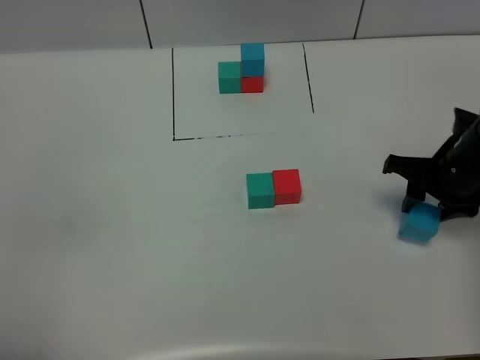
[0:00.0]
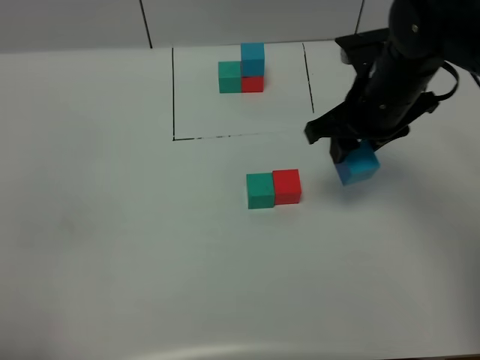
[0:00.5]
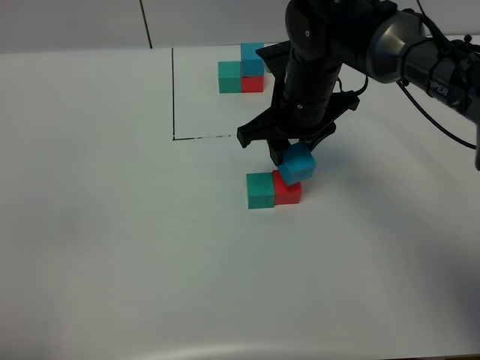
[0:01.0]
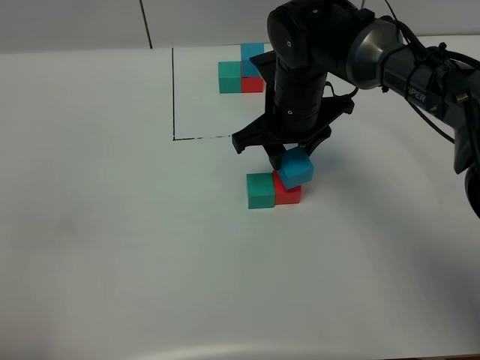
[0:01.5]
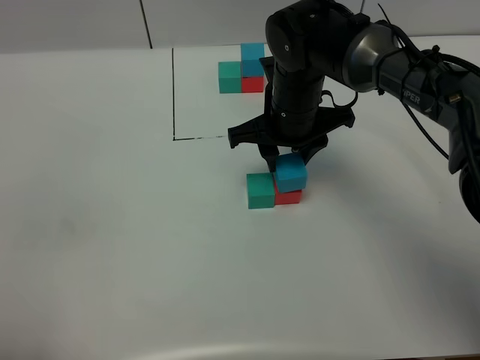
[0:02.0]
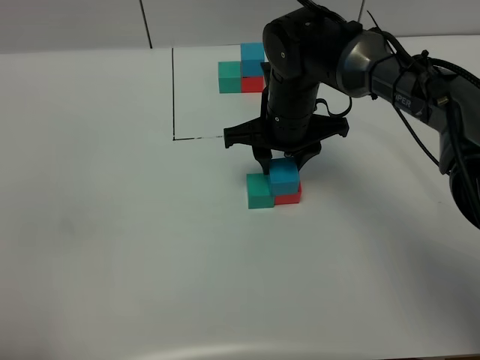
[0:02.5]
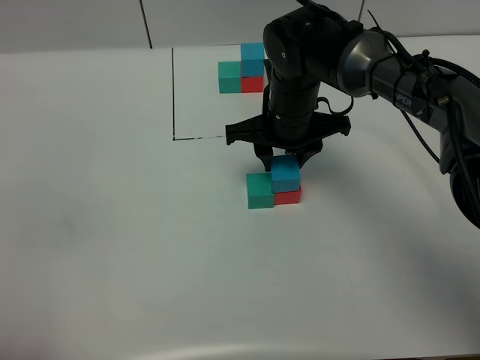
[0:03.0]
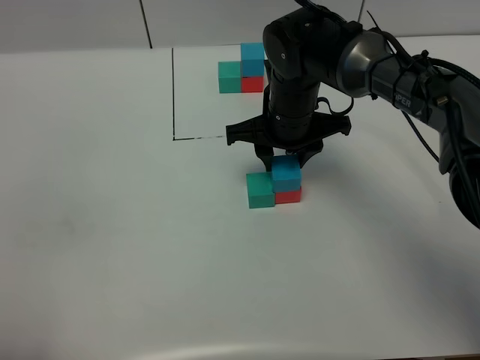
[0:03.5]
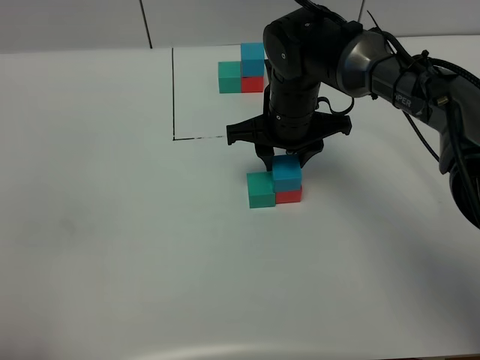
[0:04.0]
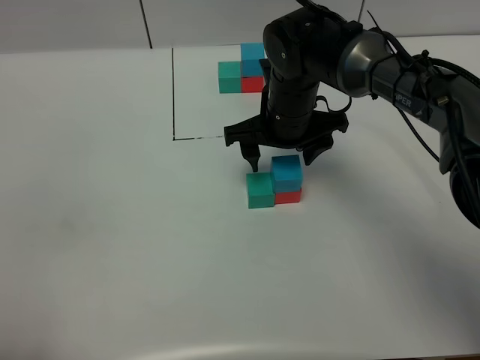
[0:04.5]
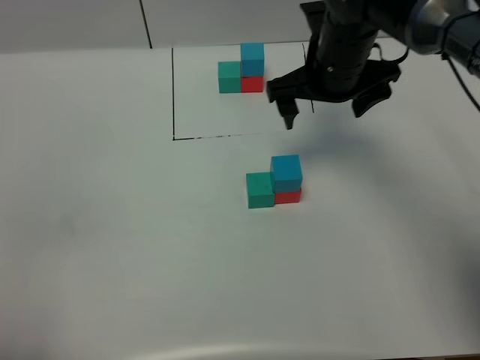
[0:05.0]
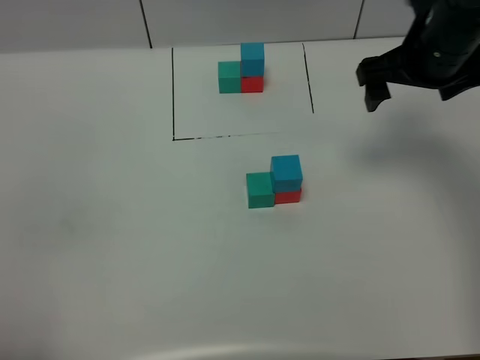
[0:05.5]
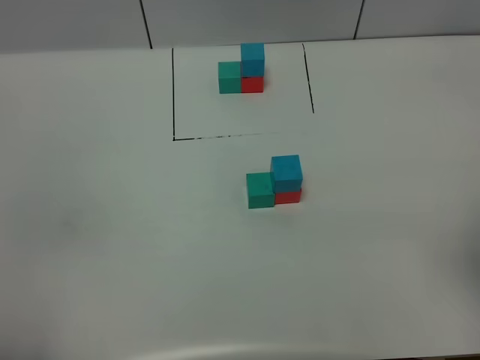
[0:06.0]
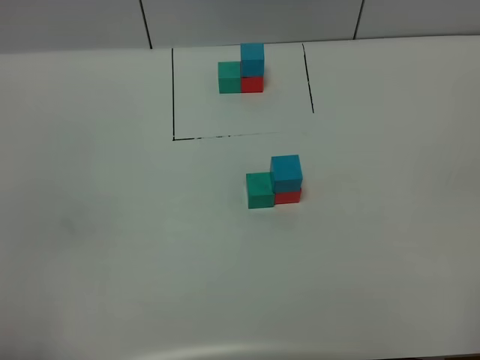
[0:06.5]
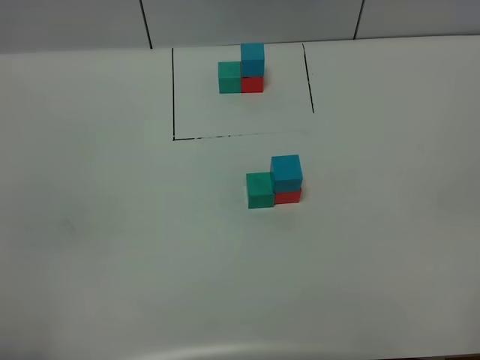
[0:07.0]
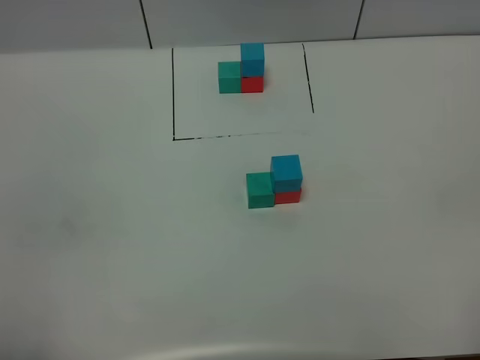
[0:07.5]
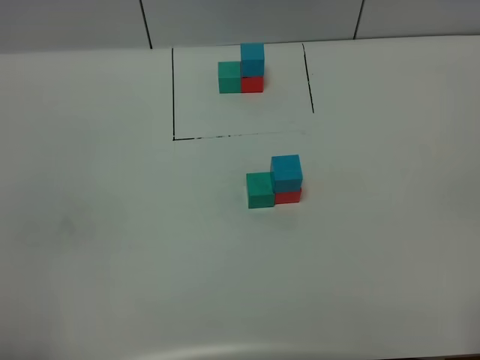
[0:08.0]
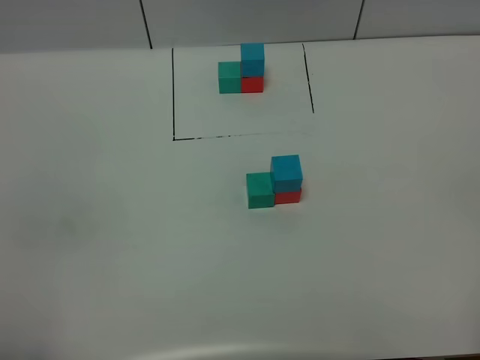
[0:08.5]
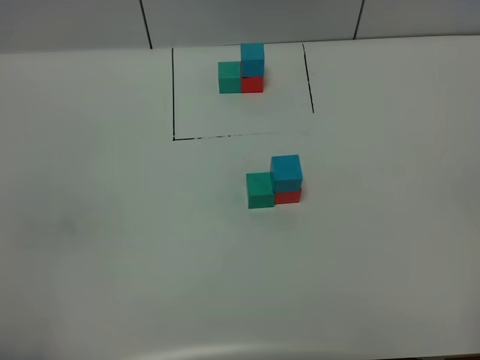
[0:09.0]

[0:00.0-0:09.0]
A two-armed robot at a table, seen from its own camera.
Task of the whole recording: According to the building block template in front, assemble the scattered blocks together.
Step, 0:00.0 to 0:04.0: Put the blue build block on the red build block.
0:00.0 to 0:02.0: The right gripper is displaced to the left by approximately 20 cm.
0:02.0 to 0:04.5: The right gripper opens up.
0:04.5 to 0:07.0: The right gripper moves backward and to the right, approximately 40 cm.

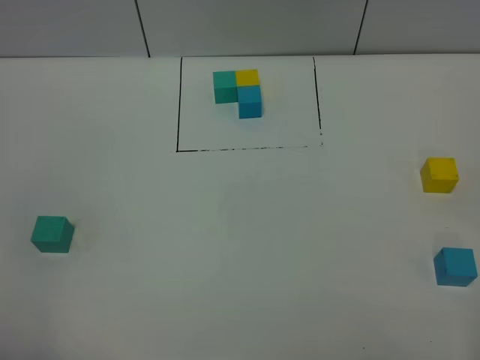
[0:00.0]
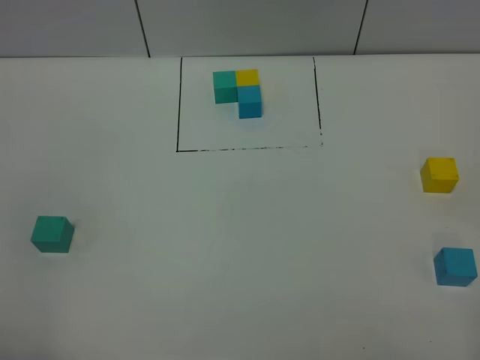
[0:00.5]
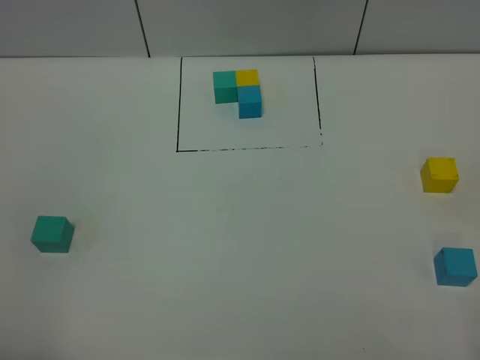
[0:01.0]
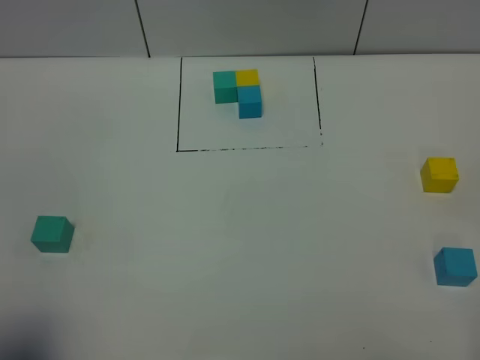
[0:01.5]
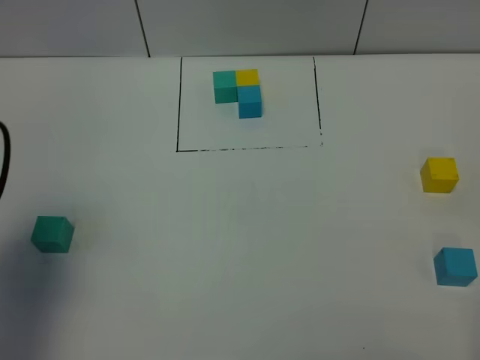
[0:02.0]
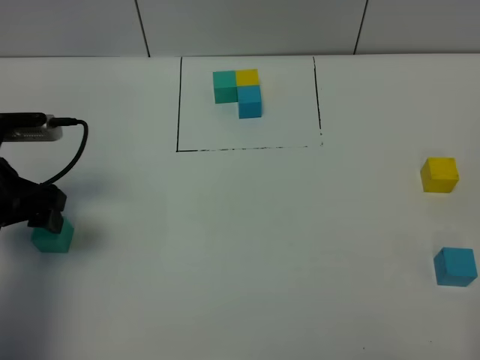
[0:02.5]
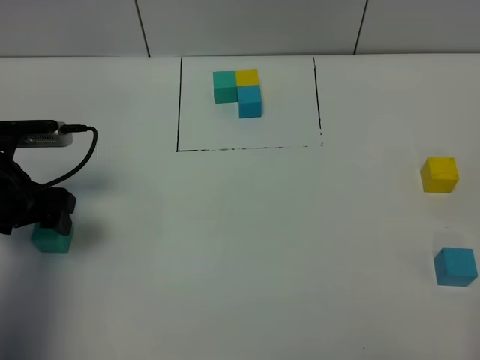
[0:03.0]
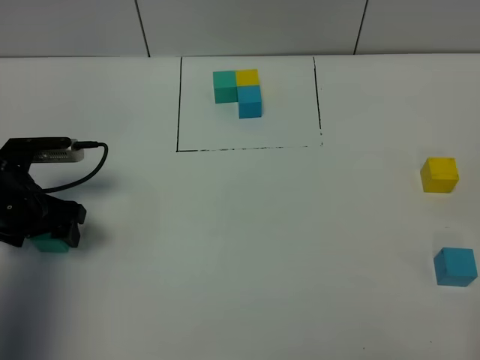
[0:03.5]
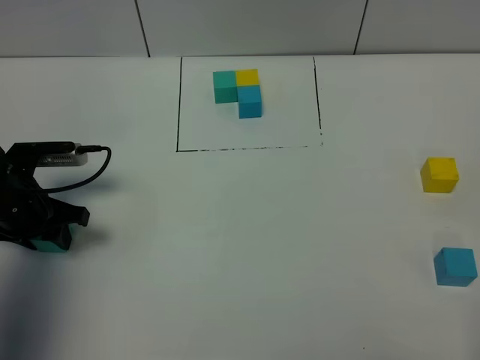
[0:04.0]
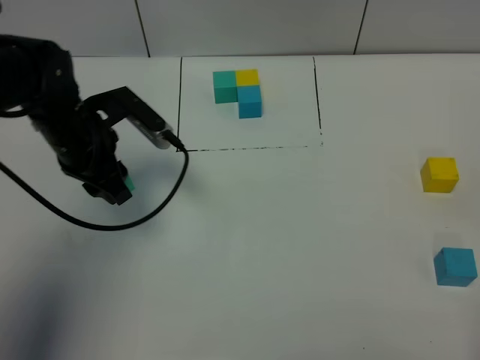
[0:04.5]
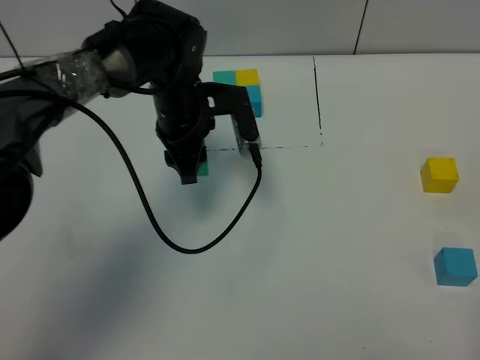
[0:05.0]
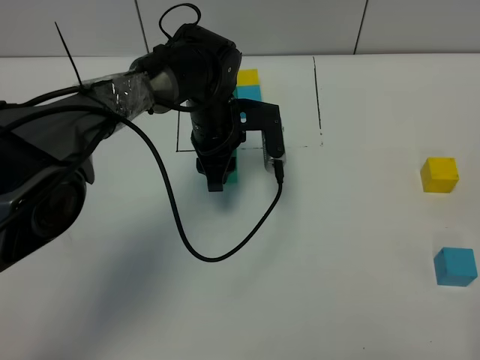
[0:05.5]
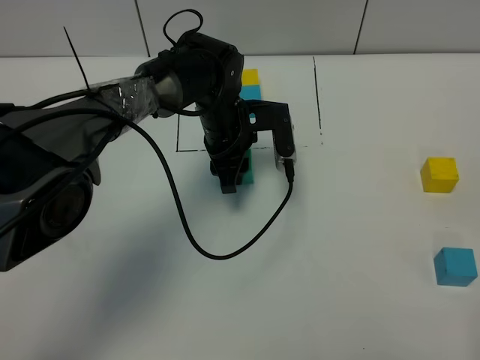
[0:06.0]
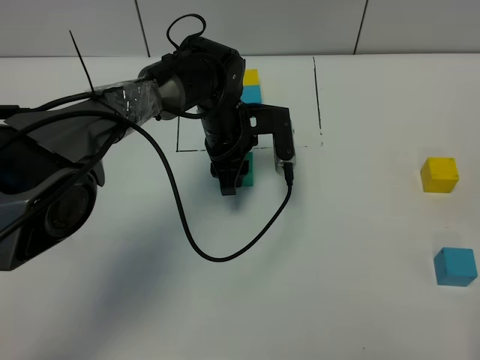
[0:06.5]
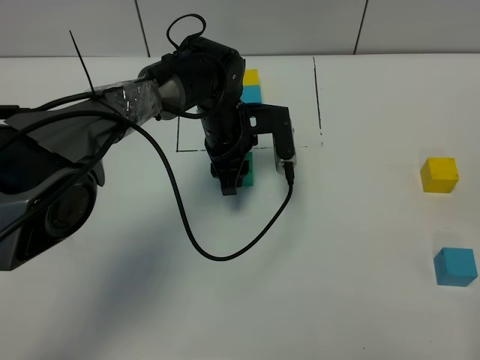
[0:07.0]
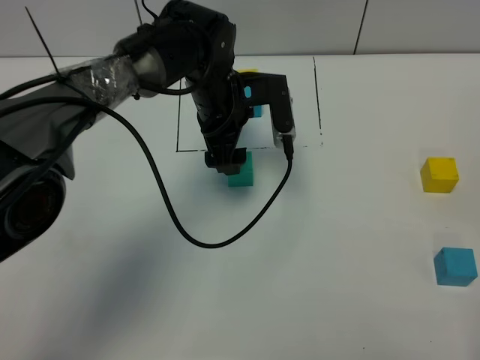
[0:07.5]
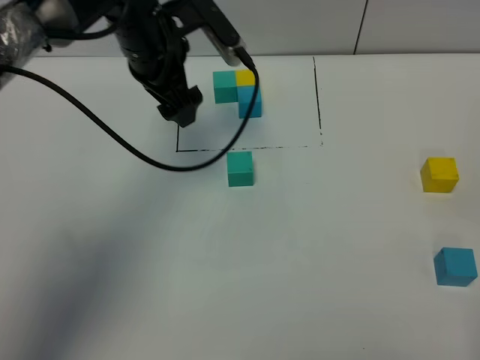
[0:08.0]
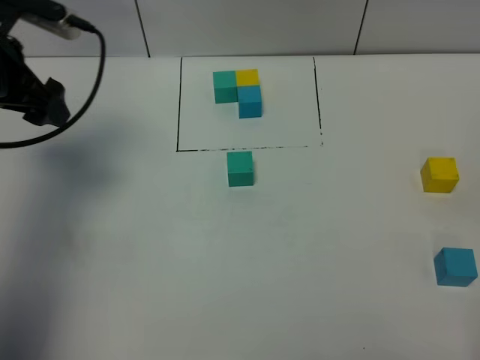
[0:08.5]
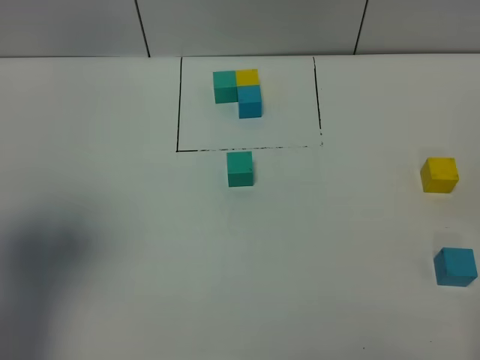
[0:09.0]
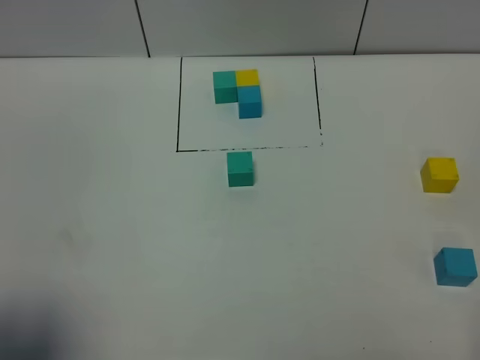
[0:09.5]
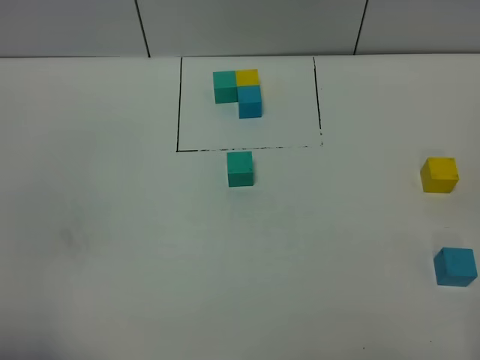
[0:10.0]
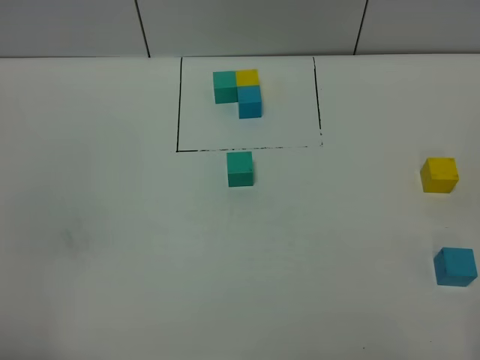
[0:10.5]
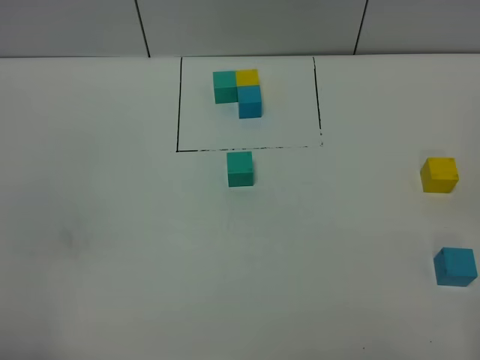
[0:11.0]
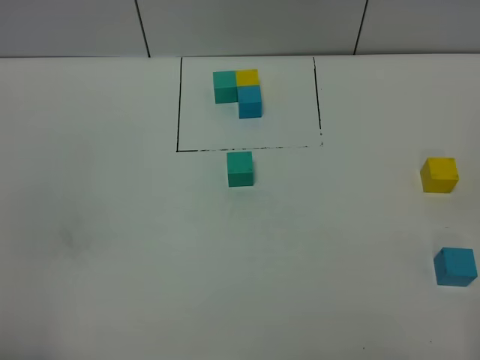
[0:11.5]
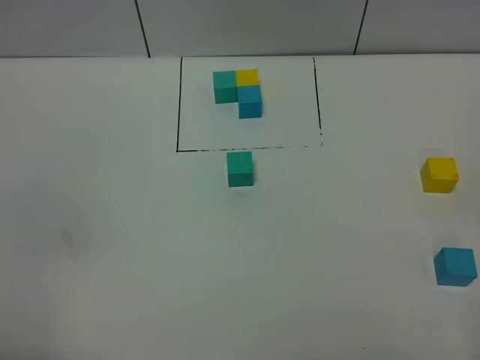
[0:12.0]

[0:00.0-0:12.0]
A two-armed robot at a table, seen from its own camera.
Task of the whole recording: According to the building block template in front, assemble the scattered blocks together.
Step, 0:00.0 to 0:07.0: Put the green build block in the center of the table.
0:00.0 to 0:02.0: The left gripper shifts some 20 cm forward.
0:02.0 to 0:04.0: The left gripper heads downward and forward, covering approximately 20 cm, and closes its fingers.
0:04.0 to 0:06.0: The left gripper travels to the right and forward by about 30 cm.
0:06.0 to 0:08.0: The left gripper is displaced upward and to the left by some 15 cm, and opens.
0:08.0 to 0:10.0: The left gripper moves backward and to the left, approximately 40 cm.

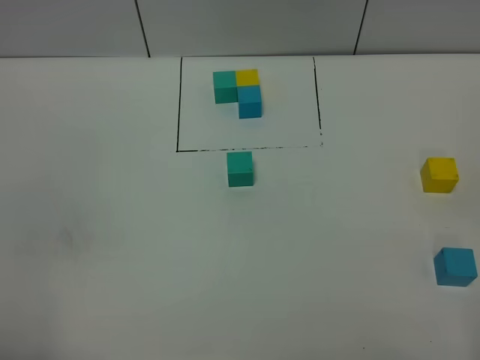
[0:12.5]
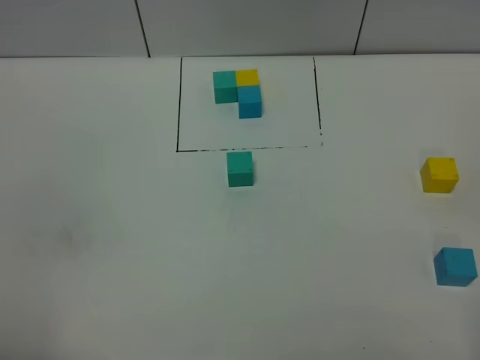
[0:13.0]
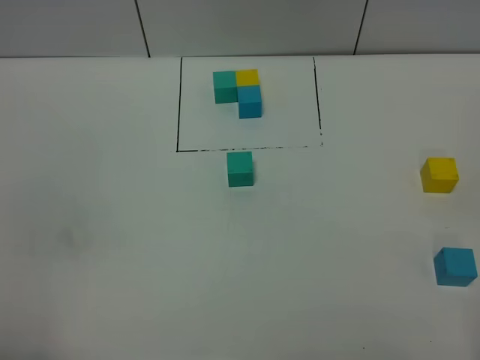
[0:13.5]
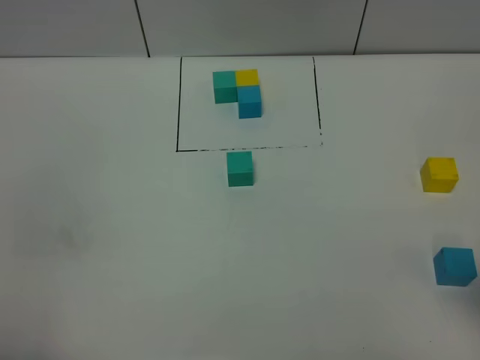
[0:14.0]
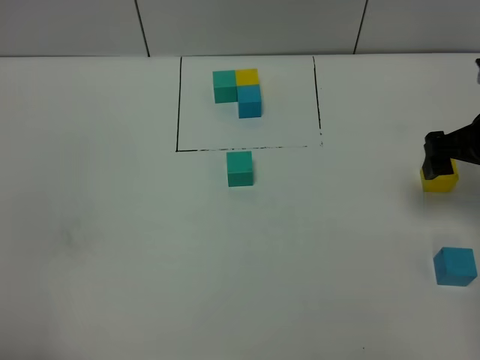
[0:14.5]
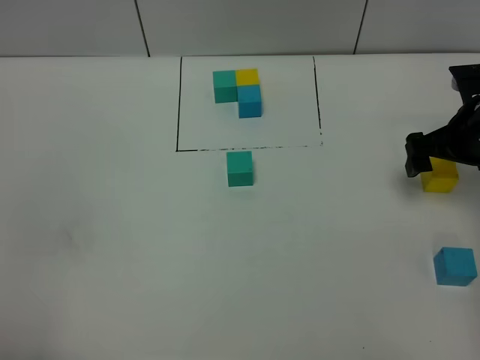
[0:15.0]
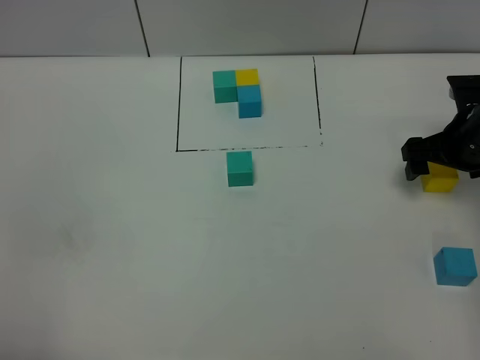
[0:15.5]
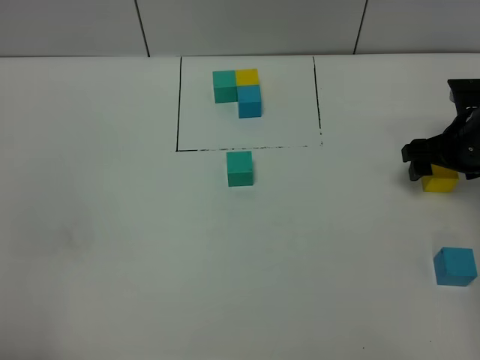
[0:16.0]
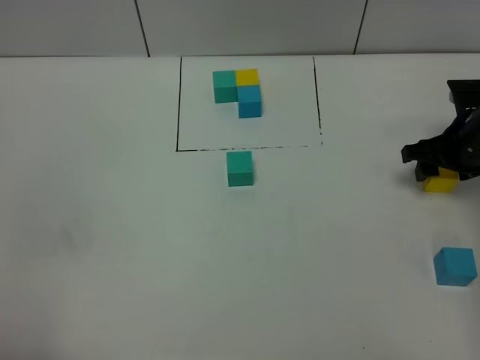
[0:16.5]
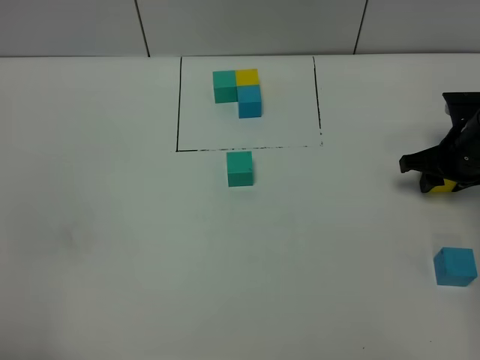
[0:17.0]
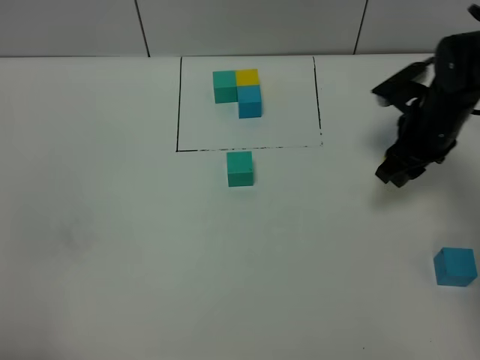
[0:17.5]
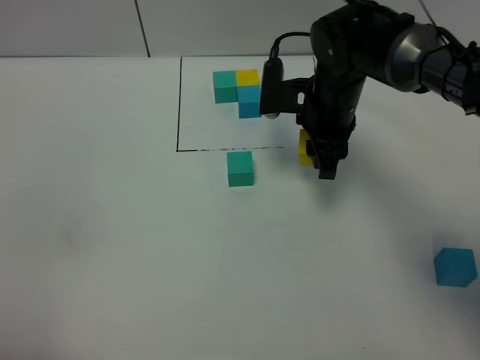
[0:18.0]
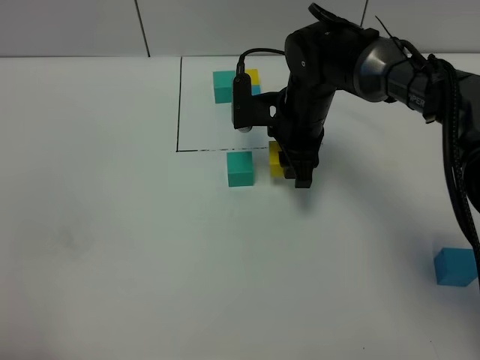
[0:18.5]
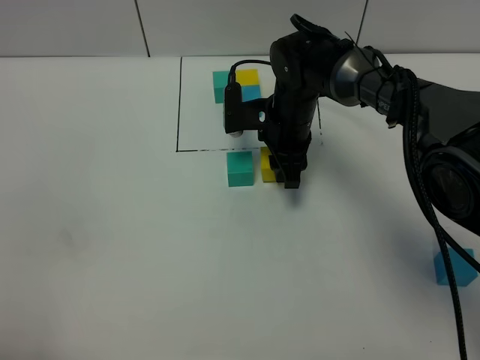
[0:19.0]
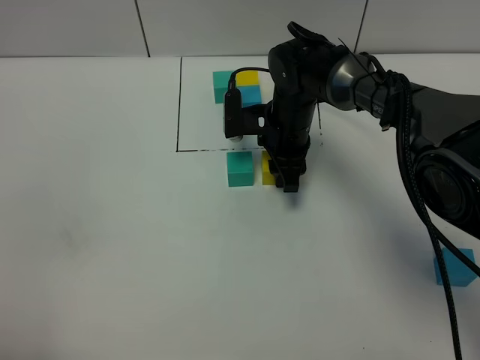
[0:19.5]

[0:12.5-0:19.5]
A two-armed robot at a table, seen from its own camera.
Task of the whole recording: According to the building block template in front, assemble the scattered blocks together.
0:12.5 to 0:14.5: The right gripper is displaced forward by approximately 30 cm, and opens its fingers.
0:14.5 to 0:16.0: The right gripper is displaced downward by approximately 5 cm, and closes up.
0:16.0 to 0:17.5: The right gripper moves to the left, some 10 cm, and closes.
0:17.5 to 0:19.5: The right gripper moves to the left, roughly 15 cm.
